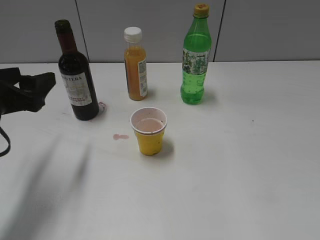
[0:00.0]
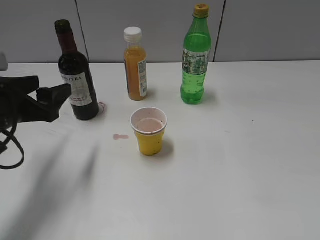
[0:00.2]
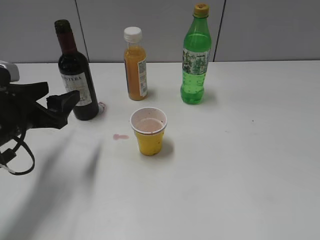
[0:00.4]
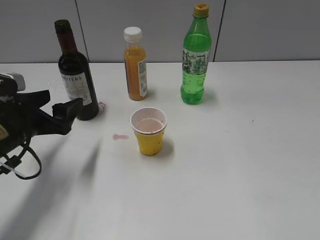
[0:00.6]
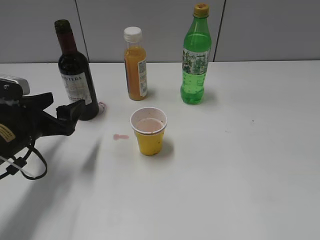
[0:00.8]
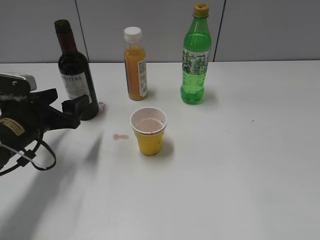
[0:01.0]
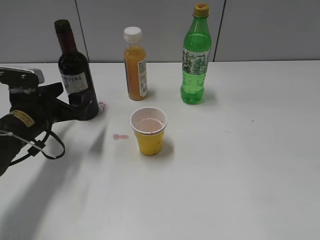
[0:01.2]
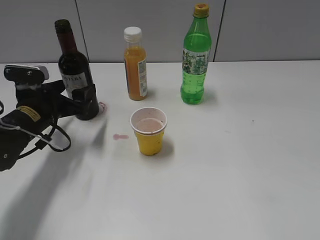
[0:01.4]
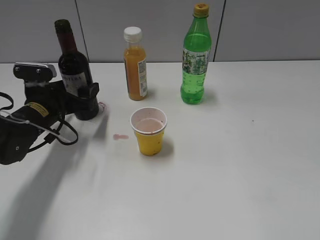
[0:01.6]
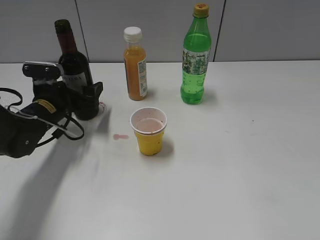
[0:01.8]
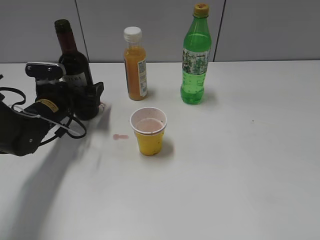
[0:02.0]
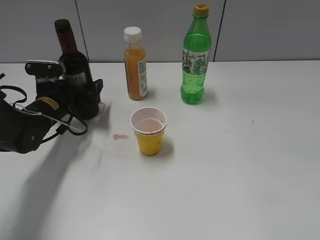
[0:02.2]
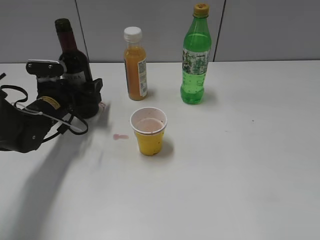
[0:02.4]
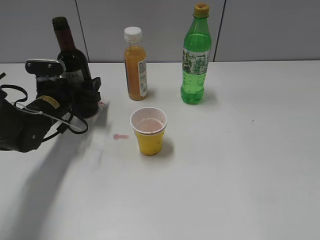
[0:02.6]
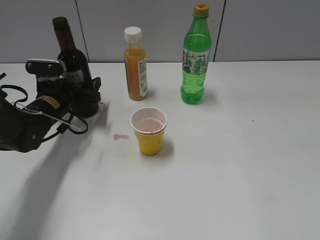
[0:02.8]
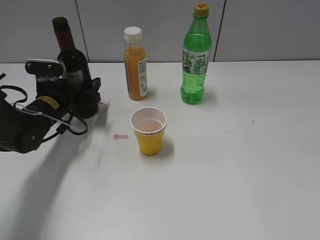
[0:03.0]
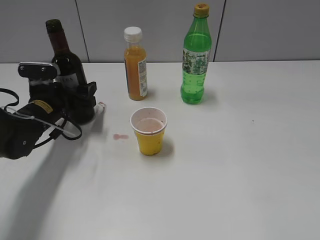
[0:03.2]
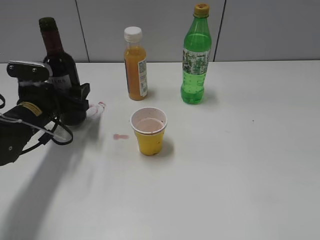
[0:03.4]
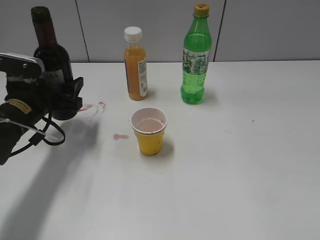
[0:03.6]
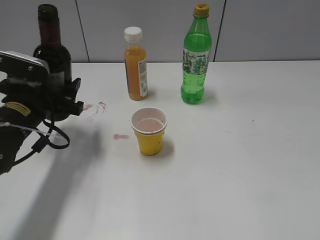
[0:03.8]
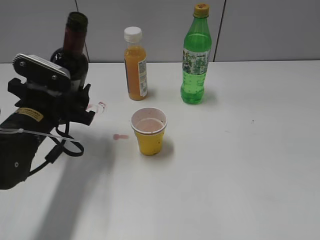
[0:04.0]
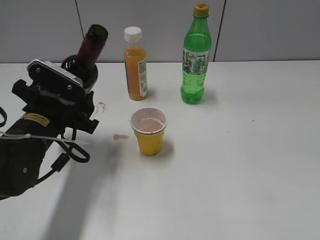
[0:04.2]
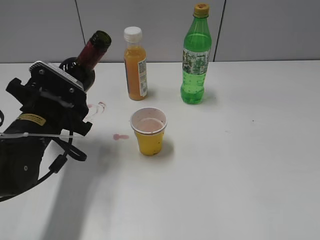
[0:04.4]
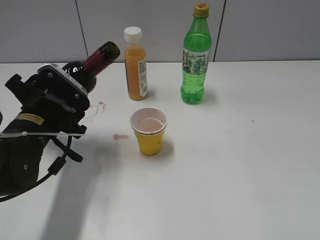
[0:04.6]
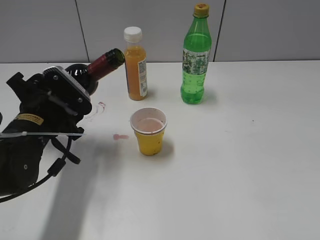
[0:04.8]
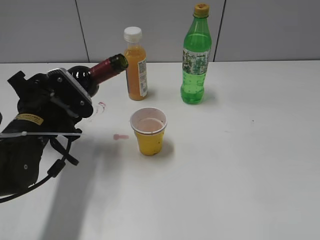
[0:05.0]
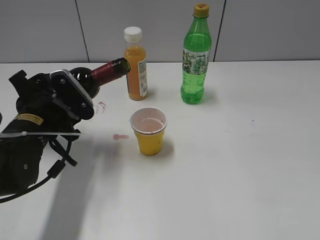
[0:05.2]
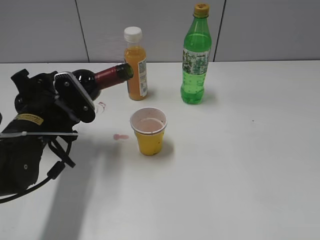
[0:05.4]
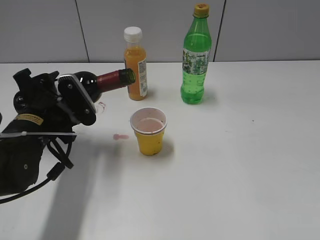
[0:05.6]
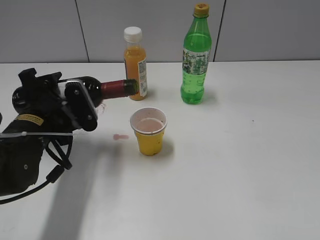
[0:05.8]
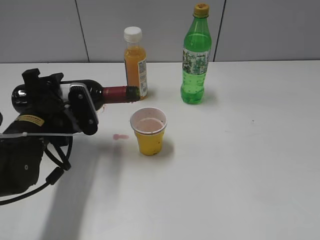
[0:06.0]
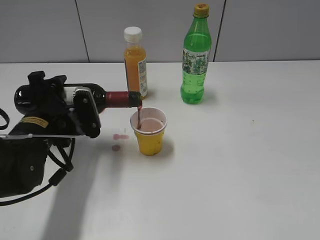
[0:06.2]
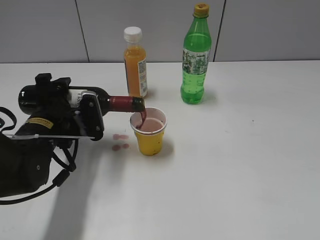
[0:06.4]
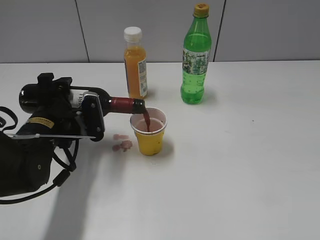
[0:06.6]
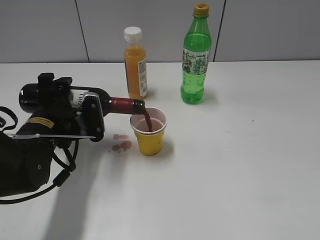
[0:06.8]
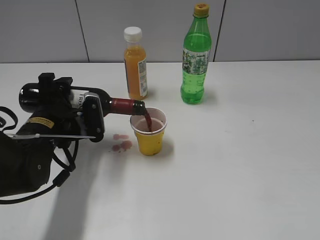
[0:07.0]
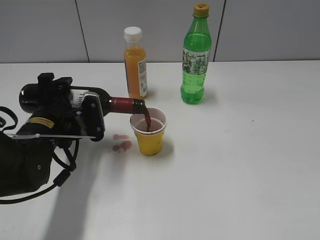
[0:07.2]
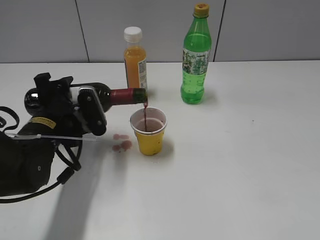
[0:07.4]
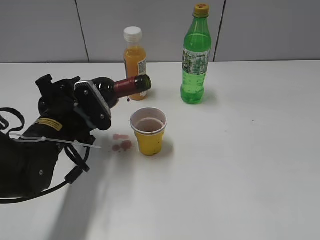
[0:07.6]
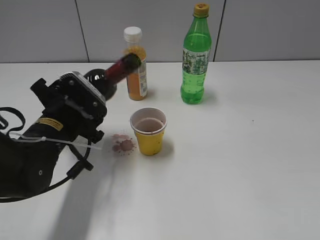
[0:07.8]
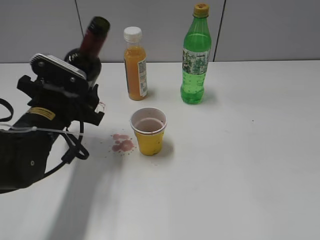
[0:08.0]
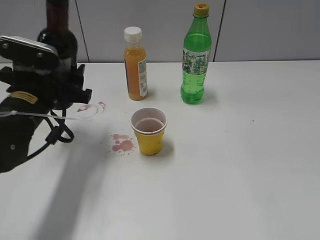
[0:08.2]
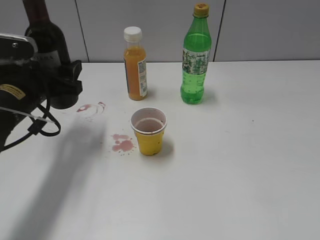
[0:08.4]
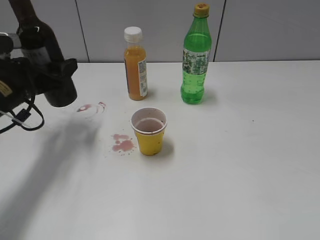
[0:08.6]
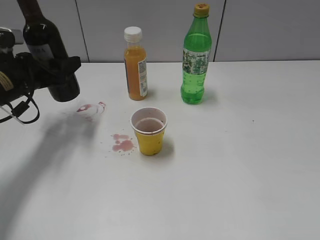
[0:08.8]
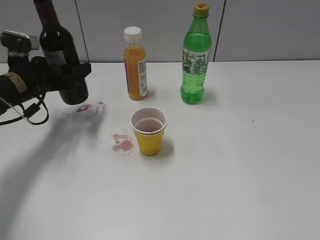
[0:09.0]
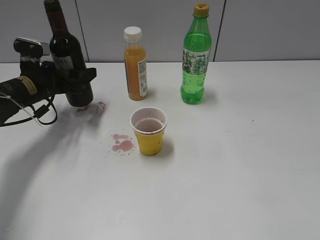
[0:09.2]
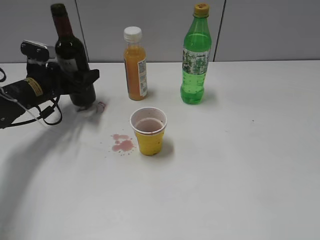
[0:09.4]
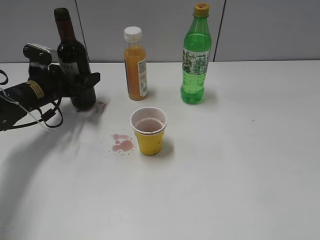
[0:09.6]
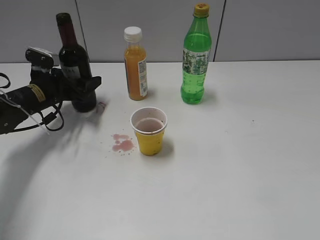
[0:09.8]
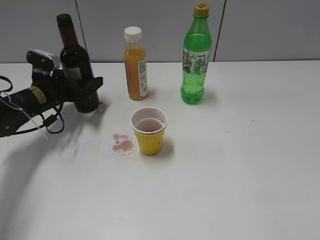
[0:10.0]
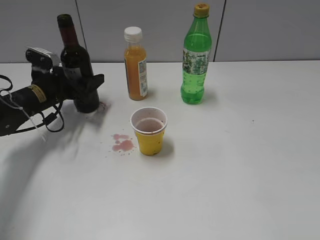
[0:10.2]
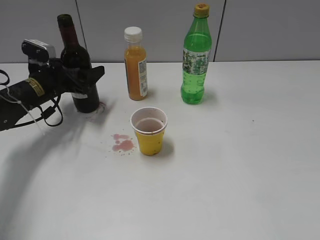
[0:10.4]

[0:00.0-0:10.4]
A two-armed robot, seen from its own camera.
Step, 0:00.0 to 0:02.6: Grasp the bottle with red wine with left gripper.
Step, 0:02.8 to 0:07.6: Pour the red wine from bottle to cup with left gripper.
0:00.0 to 0:01.4: The left gripper shifts about 15 cm downward and forward.
0:01.4 to 0:03.0: The left gripper moves approximately 5 cm, and closes up.
0:03.0 to 0:04.4: The left gripper heads backward and upward, covering about 10 cm.
0:06.0 to 0:07.4: There are only small adjustments of the grippers.
0:07.4 to 0:09.0: The left gripper moves forward and to the left, approximately 10 cm.
0:09.0 to 0:10.4: The left gripper changes place by about 5 cm, and opens up.

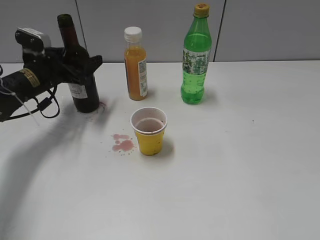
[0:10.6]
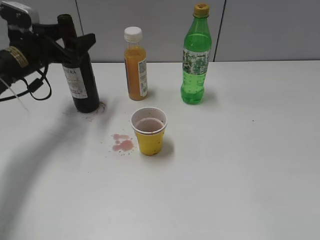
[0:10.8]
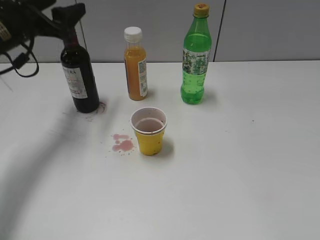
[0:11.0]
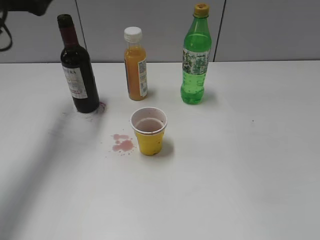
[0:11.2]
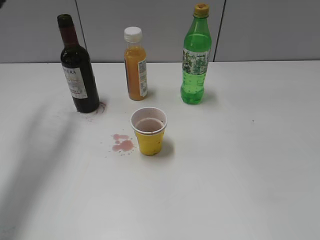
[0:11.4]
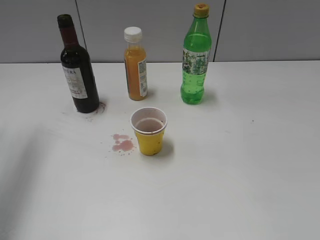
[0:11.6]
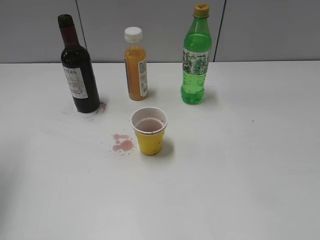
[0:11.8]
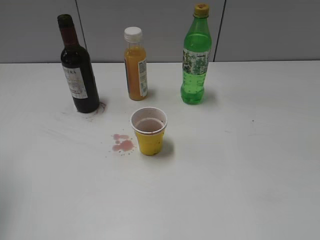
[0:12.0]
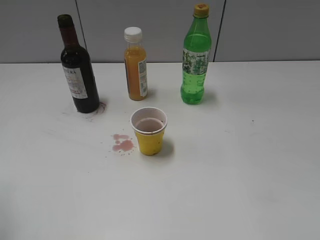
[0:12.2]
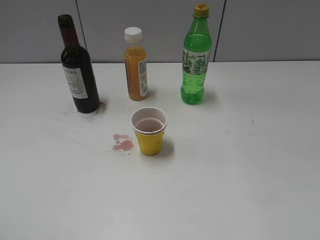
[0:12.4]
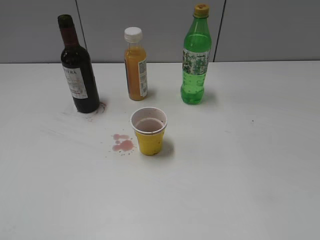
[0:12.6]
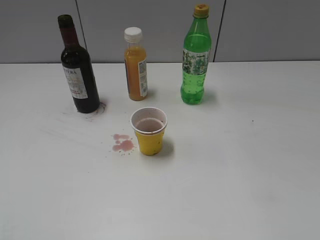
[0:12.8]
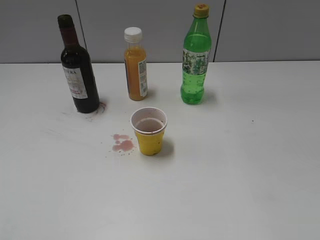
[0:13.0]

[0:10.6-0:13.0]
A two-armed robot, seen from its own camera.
0:10.6 to 0:11.8: The left gripper heads upward, backward and to the left, covering some 25 cm.
0:11.8 to 0:13.0: The left gripper goes about 25 cm backward.
